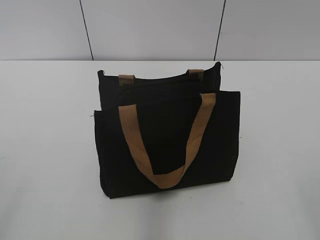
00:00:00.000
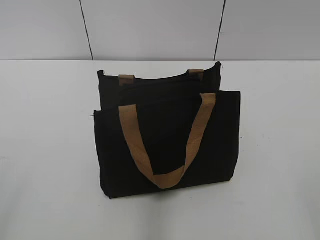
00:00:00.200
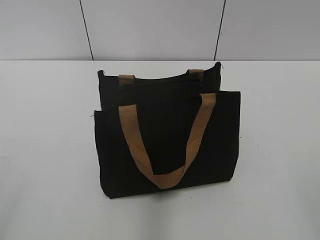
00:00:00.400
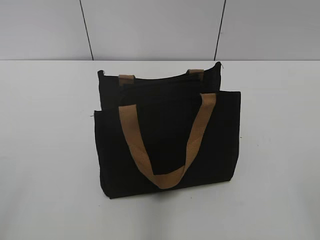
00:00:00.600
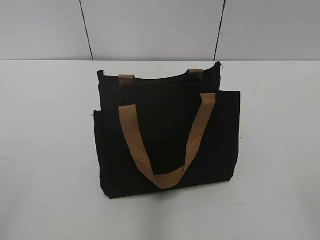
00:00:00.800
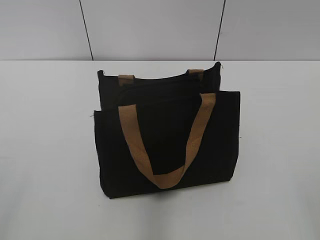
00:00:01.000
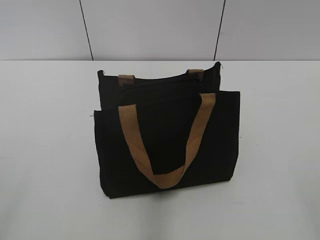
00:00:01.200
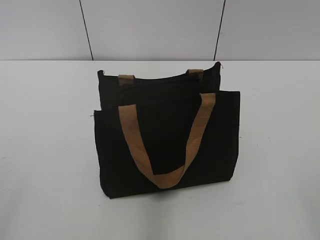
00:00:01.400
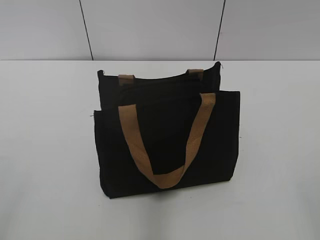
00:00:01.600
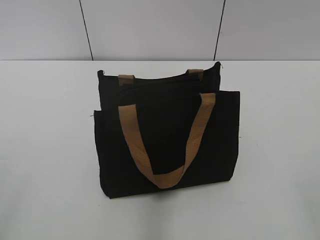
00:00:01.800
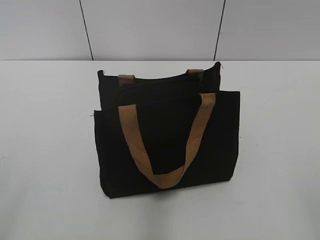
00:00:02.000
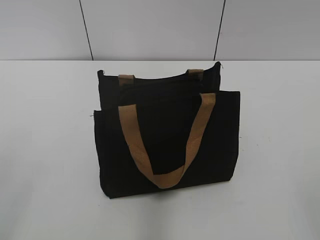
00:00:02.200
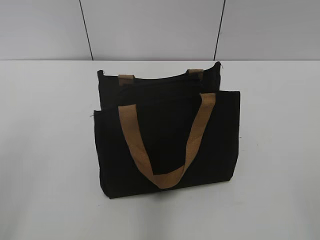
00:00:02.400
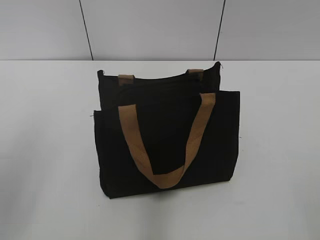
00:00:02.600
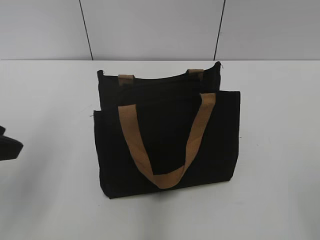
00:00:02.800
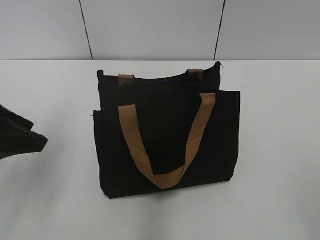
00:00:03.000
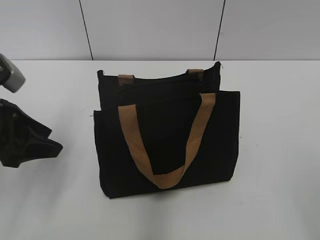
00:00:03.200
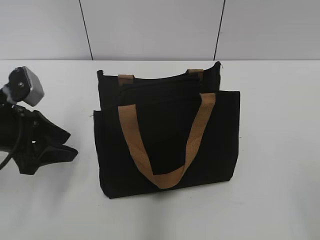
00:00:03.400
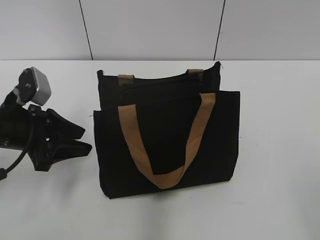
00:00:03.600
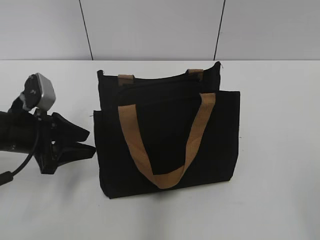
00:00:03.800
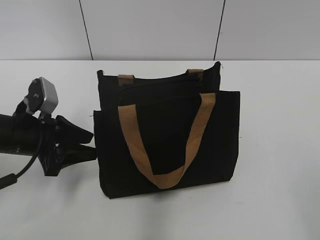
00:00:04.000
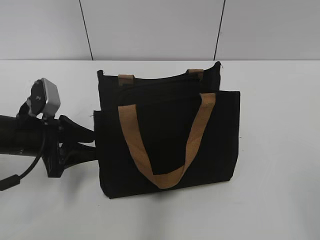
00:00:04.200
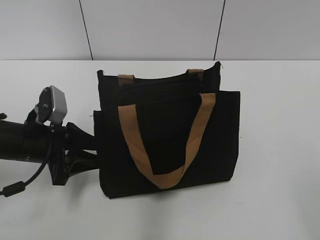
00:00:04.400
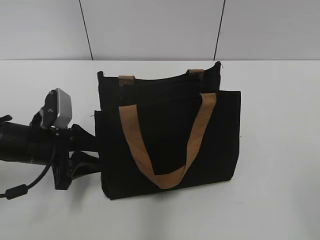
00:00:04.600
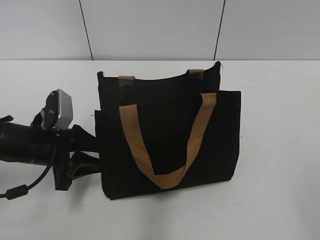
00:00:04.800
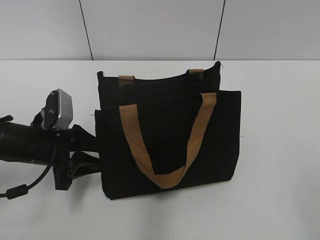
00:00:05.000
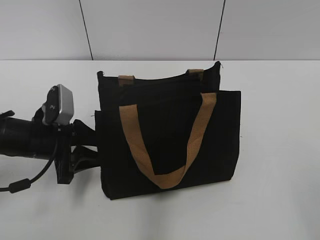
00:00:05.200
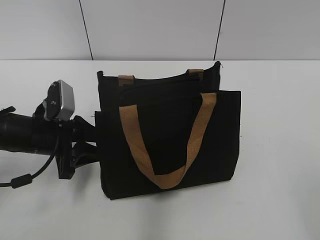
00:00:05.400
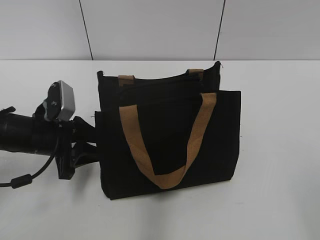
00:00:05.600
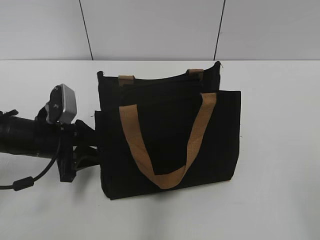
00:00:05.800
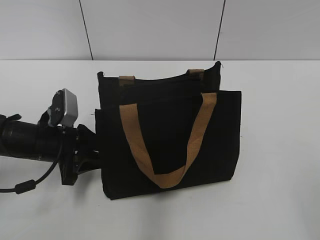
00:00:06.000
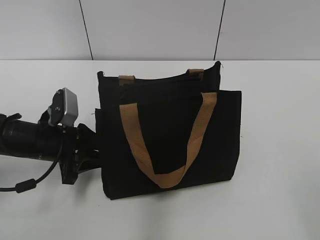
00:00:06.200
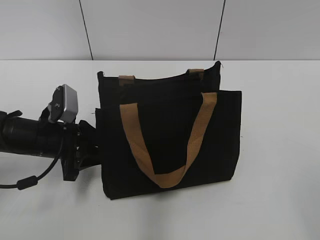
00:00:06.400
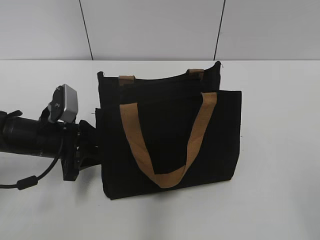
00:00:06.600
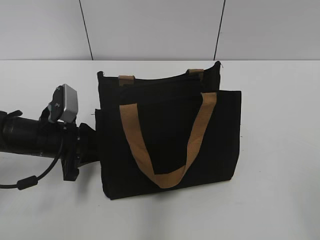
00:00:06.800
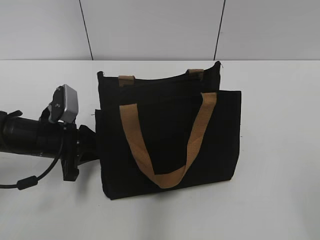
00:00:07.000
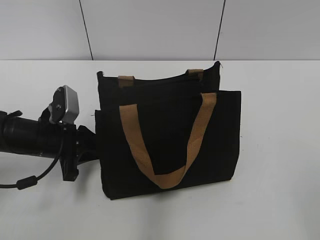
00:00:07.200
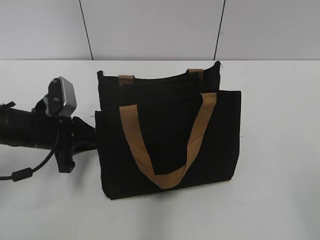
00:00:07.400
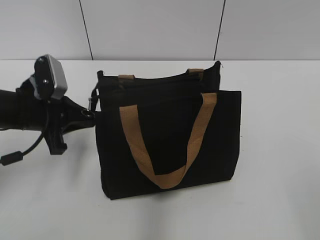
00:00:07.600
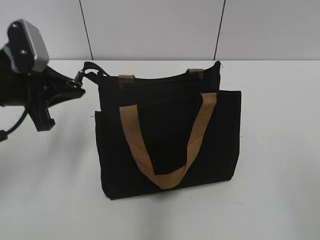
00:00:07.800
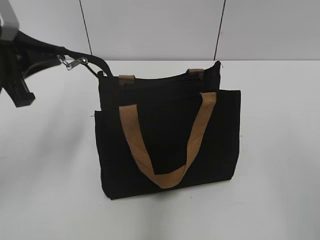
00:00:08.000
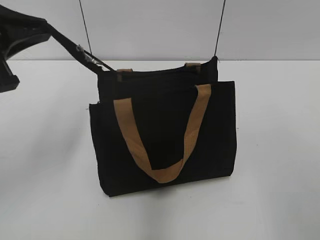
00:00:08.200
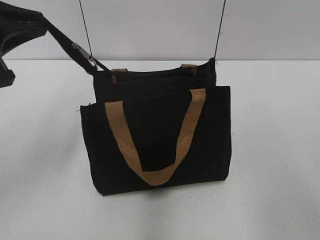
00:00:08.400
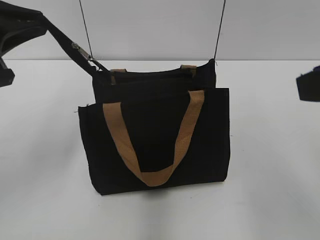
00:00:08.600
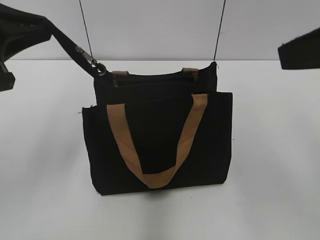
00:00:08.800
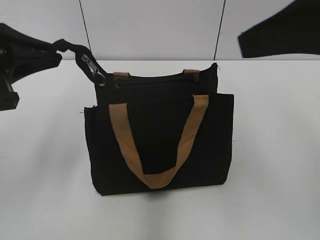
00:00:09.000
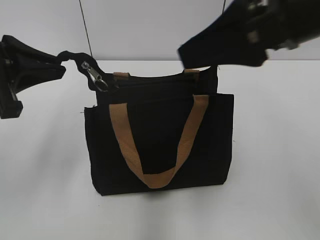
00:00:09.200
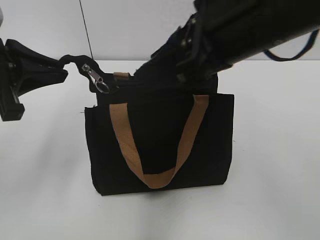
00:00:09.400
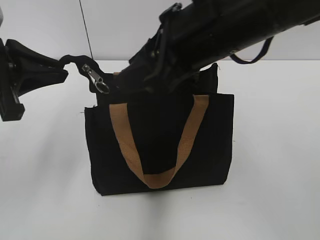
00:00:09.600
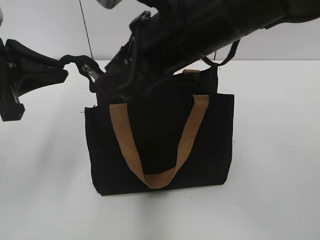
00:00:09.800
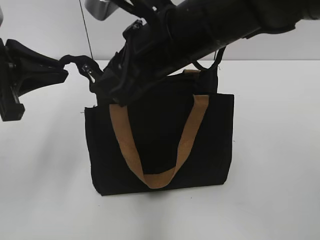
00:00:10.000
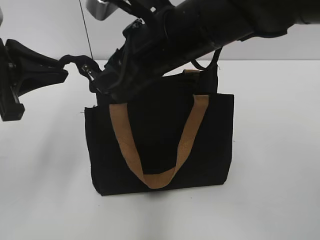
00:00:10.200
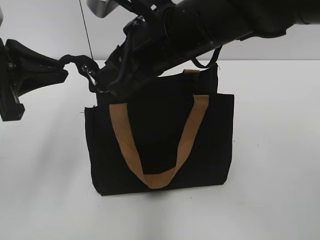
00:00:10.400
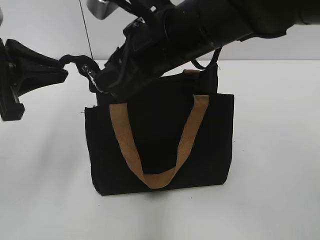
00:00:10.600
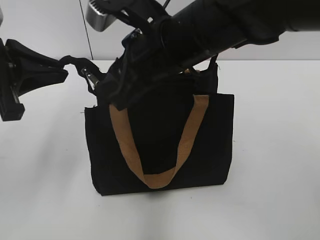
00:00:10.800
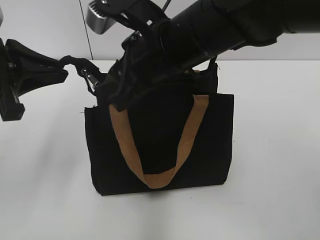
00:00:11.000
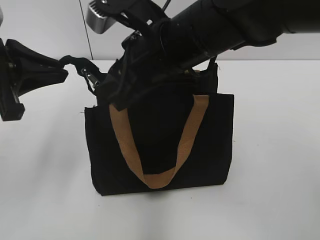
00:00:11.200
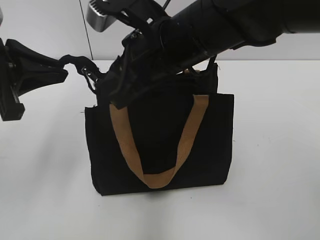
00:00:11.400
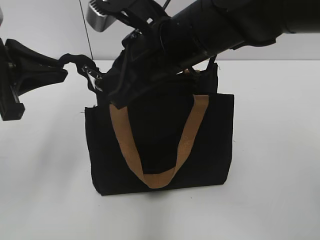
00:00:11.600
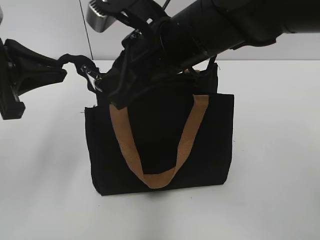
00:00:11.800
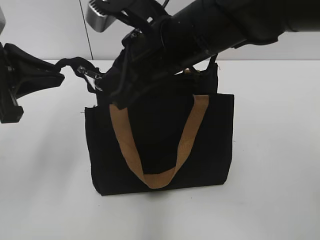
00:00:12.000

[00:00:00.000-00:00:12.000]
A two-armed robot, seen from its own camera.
00:00:01.600 to 00:00:03.000: The left gripper heads forward, covering about 20 cm.
00:00:03.000 to 00:00:04.400: The left gripper heads downward and forward, covering some 15 cm.
00:00:04.400 to 00:00:06.000: The grippers stay close to where they were, moving slightly.
00:00:06.000 to 00:00:07.600: The left gripper travels upward by roughly 5 cm, and closes up.
00:00:07.600 to 00:00:09.000: The left gripper travels upward and backward by about 15 cm. The right gripper travels forward, upward and to the left by roughly 20 cm.
00:00:09.000 to 00:00:10.400: The right gripper travels to the left, downward and forward by approximately 20 cm.
00:00:10.400 to 00:00:12.000: The right gripper closes its fingers.

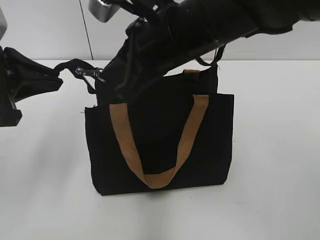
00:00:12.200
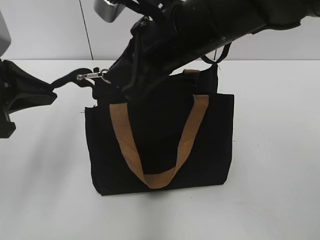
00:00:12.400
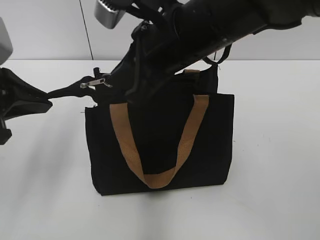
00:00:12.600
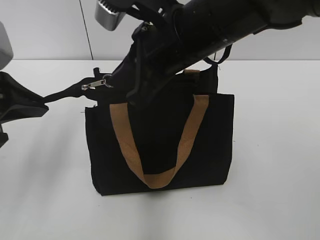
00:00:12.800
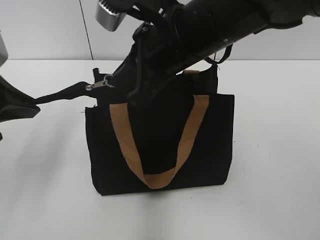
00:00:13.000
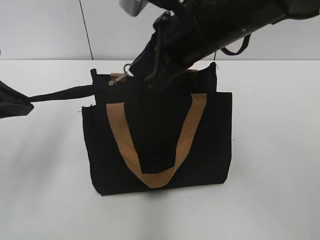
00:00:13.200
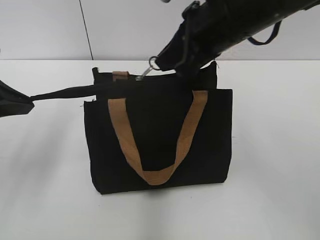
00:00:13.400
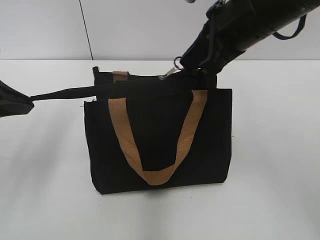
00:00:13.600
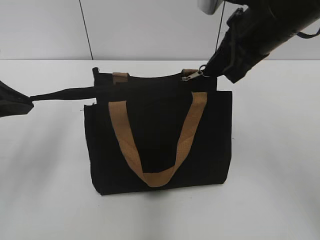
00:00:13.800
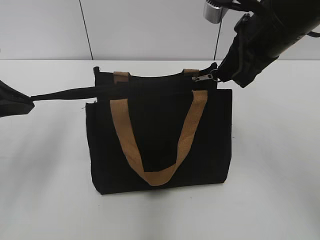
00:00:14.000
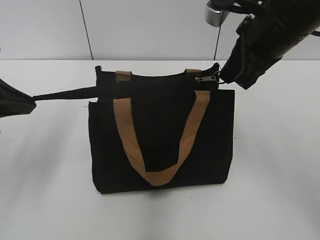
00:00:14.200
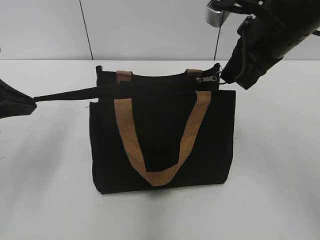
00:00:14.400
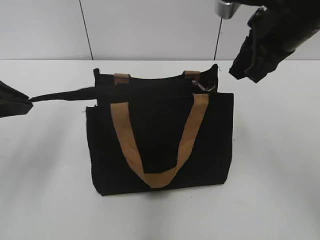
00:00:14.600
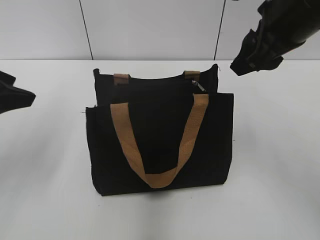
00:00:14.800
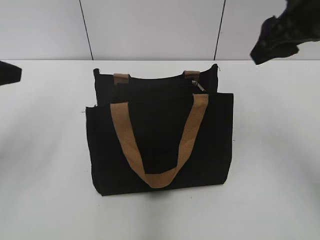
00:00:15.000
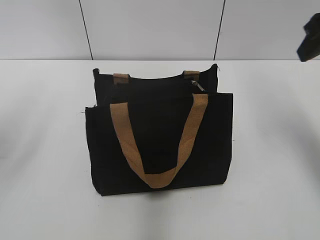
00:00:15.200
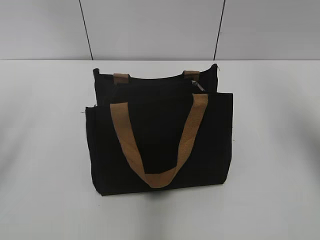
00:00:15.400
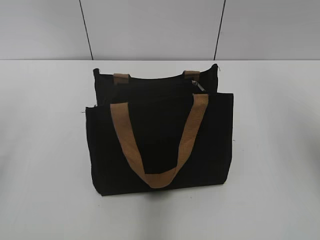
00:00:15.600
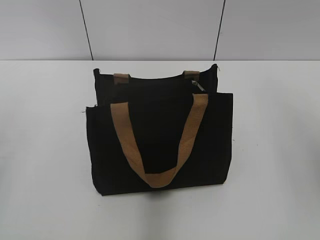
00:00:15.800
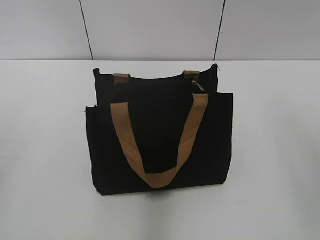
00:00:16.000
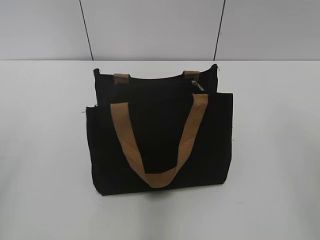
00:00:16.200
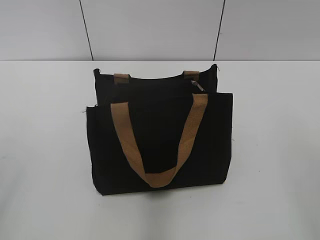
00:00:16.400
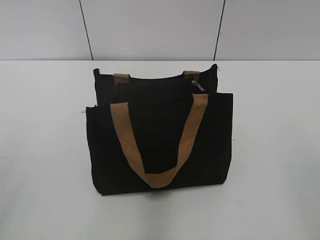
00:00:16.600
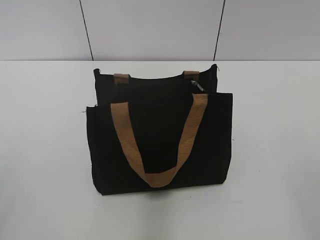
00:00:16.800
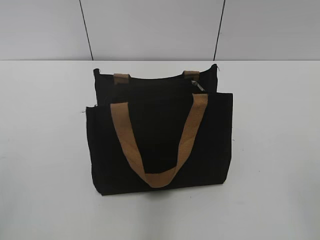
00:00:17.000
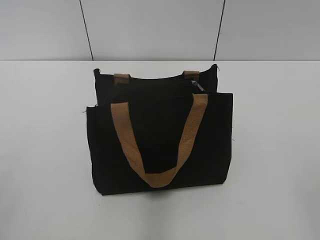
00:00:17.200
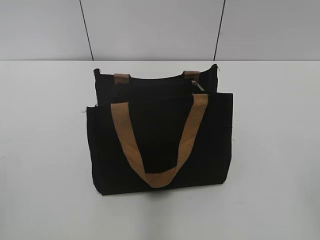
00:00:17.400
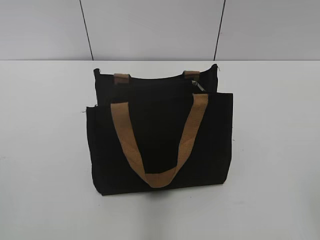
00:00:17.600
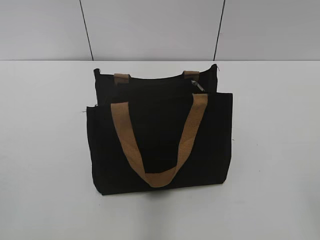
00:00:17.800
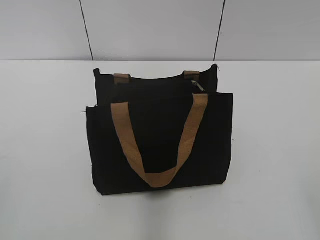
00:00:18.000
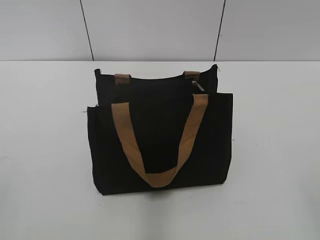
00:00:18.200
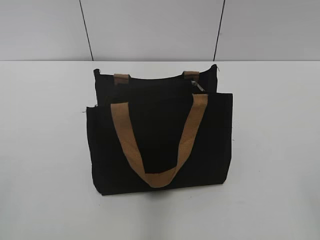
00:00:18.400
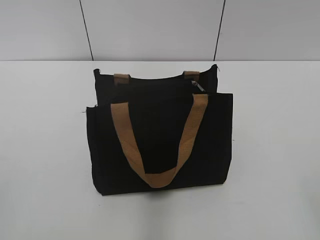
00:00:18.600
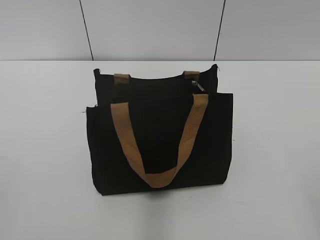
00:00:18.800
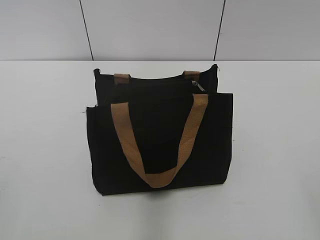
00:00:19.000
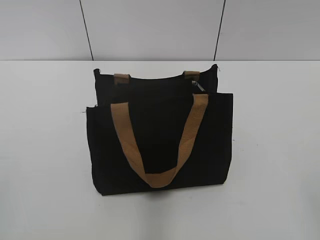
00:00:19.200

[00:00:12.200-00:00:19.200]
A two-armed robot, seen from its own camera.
Step, 00:00:12.200 to 00:00:14.400: Zip up the bag with your right hand.
00:00:12.200 to 00:00:13.600: The right gripper heads to the right, covering roughly 10 cm.
00:00:13.600 to 00:00:15.000: The left gripper opens its fingers; the right gripper moves to the right, roughly 10 cm, and opens.
00:00:15.000 to 00:00:16.400: The two grippers go some 20 cm backward.

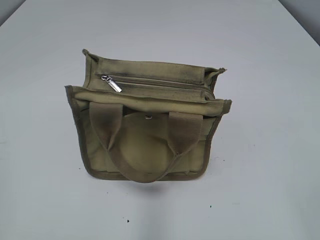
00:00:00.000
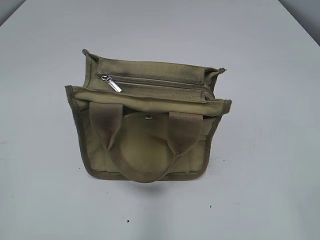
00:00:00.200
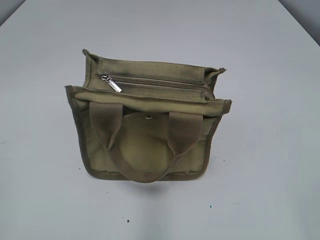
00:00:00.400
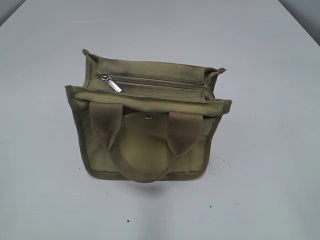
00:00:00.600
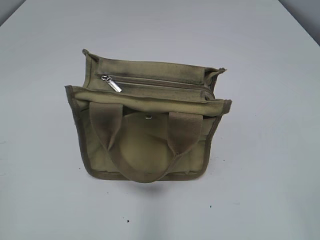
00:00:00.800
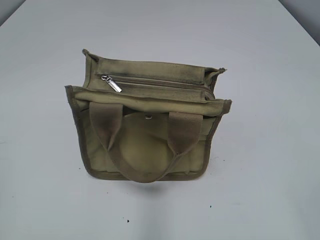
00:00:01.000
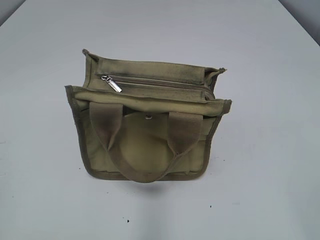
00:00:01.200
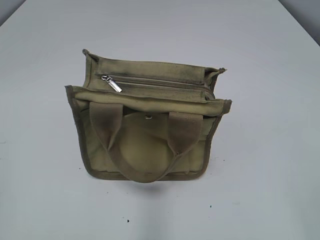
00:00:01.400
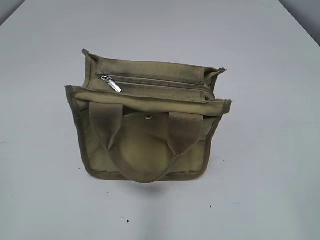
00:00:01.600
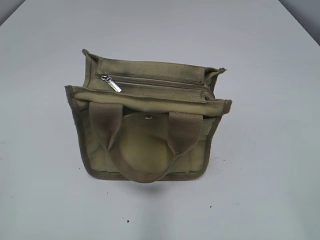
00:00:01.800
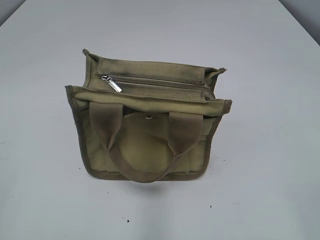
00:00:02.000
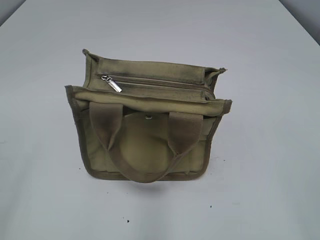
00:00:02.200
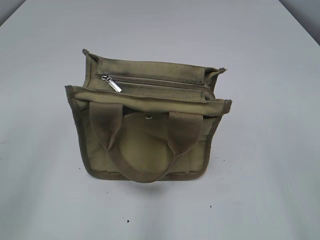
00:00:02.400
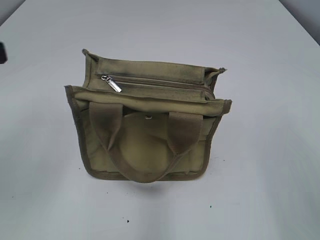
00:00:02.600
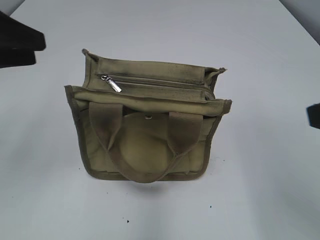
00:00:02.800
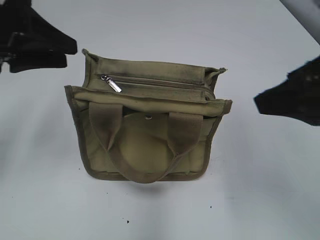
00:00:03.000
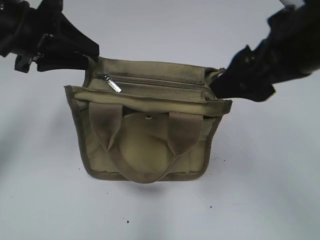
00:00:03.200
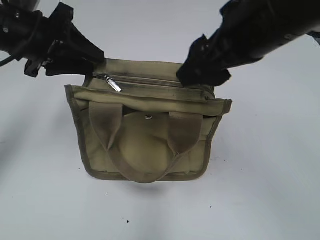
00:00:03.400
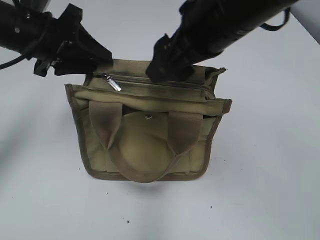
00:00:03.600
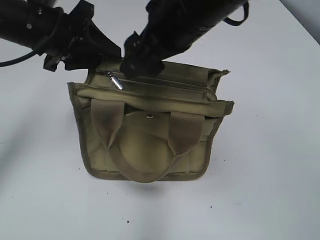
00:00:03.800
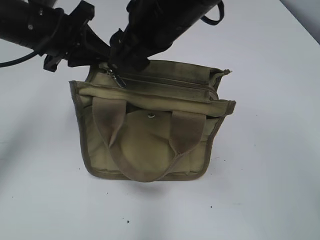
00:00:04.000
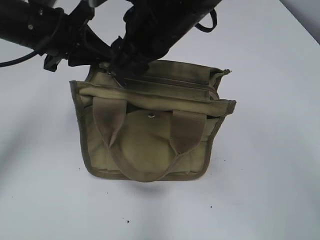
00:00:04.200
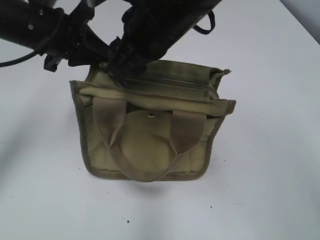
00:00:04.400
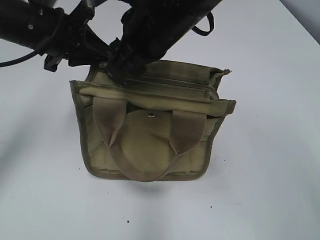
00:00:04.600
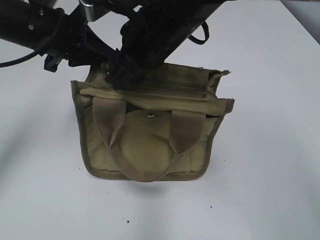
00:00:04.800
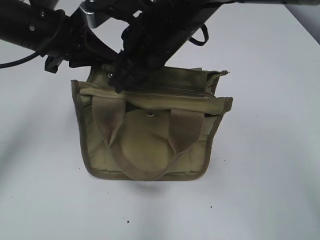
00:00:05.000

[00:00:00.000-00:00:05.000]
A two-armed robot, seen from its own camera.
00:00:01.600 to 00:00:03.400: The left gripper goes roughly 30 cm forward, while the right gripper shifts about 30 cm forward and to the left.
00:00:03.400 to 00:00:05.000: The right gripper is displaced to the left, forward and downward by approximately 15 cm, and closes its fingers, while the left gripper closes up.
